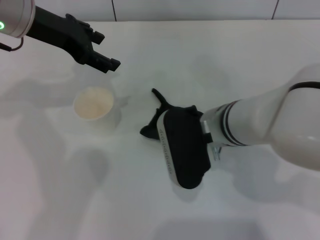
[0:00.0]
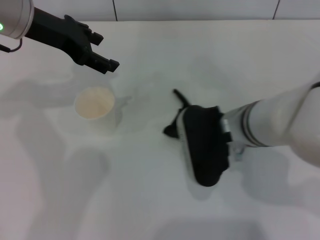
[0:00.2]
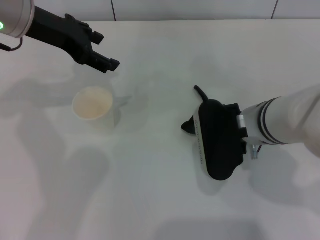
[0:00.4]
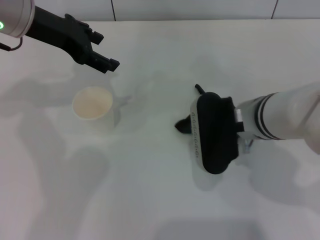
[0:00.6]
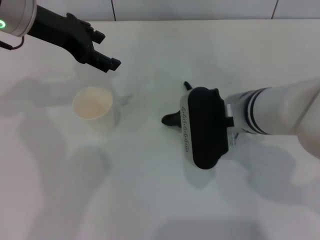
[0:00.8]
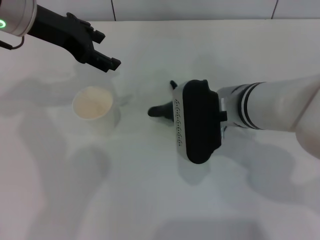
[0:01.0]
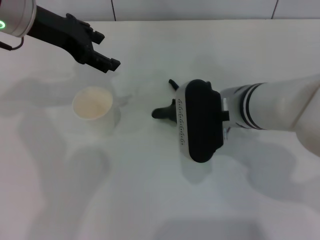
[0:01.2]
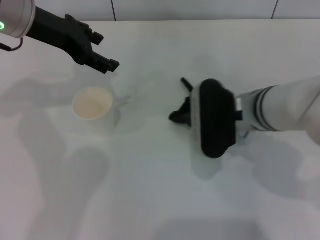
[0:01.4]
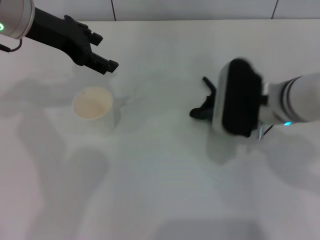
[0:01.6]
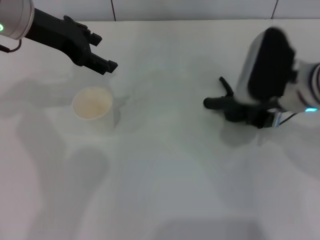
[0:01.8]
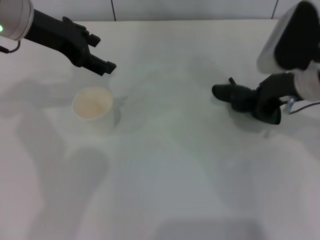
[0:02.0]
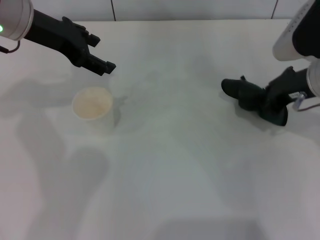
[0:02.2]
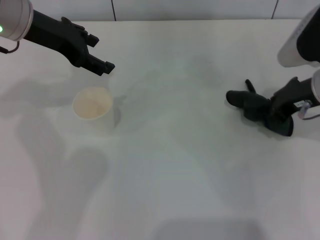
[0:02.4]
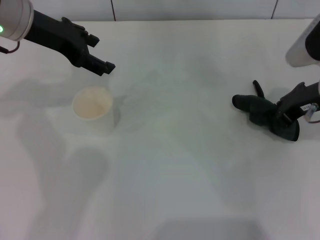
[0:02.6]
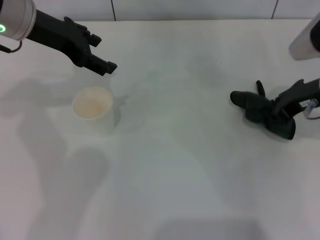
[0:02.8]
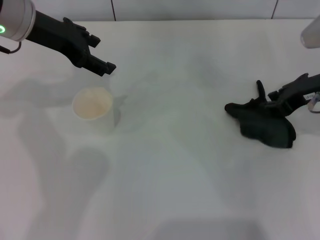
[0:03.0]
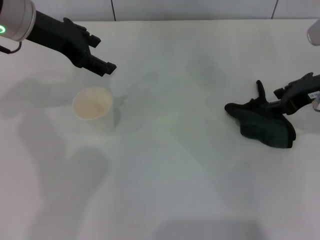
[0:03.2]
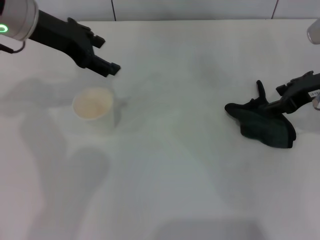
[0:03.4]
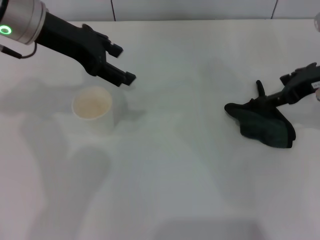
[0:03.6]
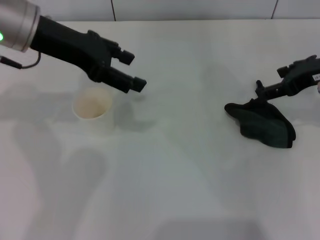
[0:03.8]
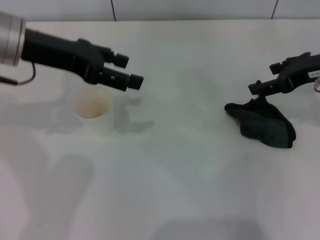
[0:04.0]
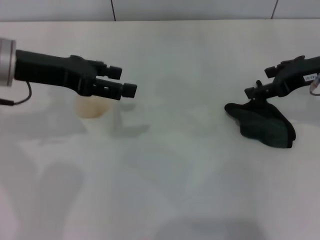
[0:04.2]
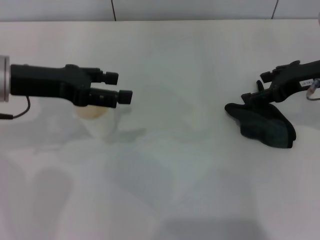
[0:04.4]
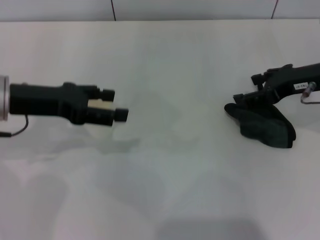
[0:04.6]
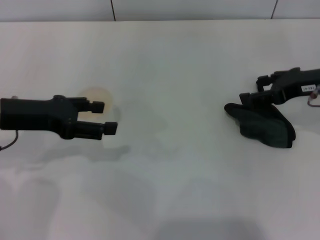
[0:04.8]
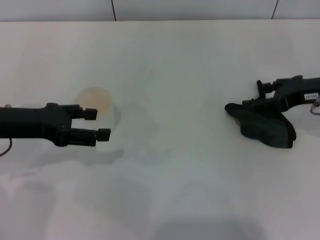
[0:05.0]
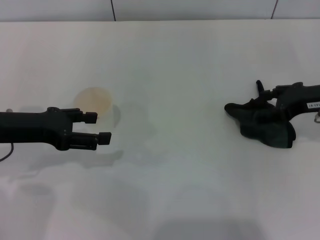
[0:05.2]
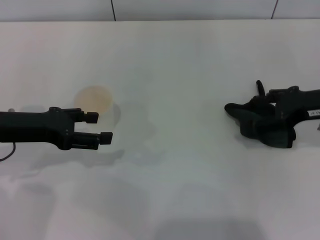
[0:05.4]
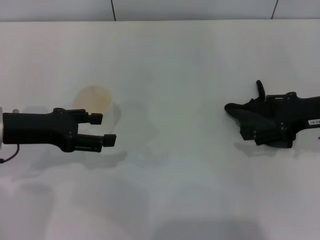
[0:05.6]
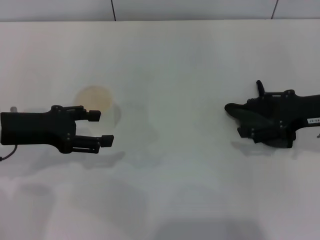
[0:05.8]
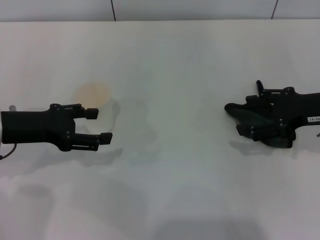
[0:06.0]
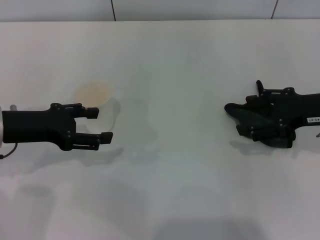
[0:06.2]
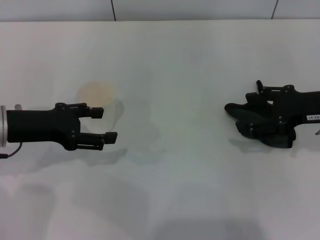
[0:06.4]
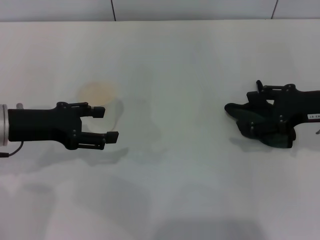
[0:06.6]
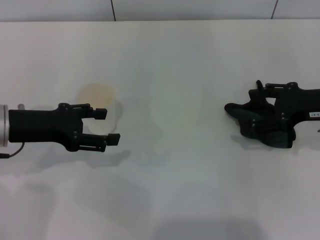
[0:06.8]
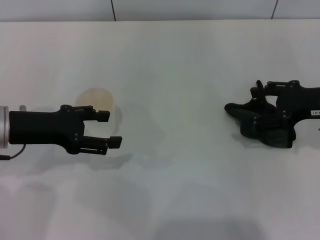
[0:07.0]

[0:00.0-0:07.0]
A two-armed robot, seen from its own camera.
Step, 0:00.0 to 0:02.4: Wipe the stains off the table with the right gripper.
Step, 0:02.6 to 0:03.4: Place the rag on the table with the right gripper.
0:00.0 to 0:01.4: The grippers stay close to where they were, moving slightly.
0:01.4 to 0:02.8: The right gripper goes roughly 15 cm to the right.
0:02.8 to 0:04.2: The left gripper goes some 5 cm backward; the right gripper opens.
0:04.2 to 0:05.6: The left gripper goes about 5 cm downward. The right gripper changes place by approximately 5 cm.
0:05.6 to 0:07.0: The grippers make only small movements.

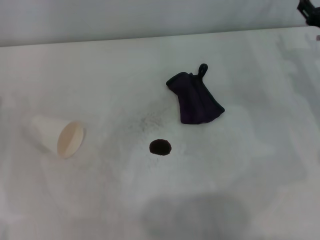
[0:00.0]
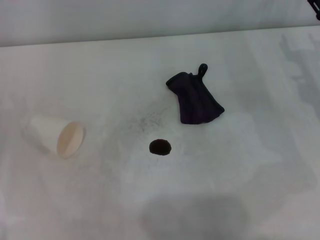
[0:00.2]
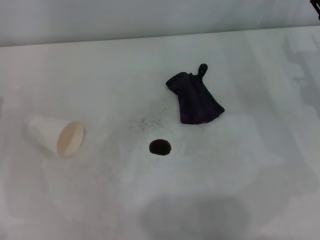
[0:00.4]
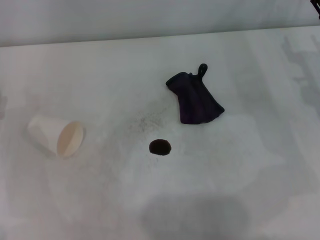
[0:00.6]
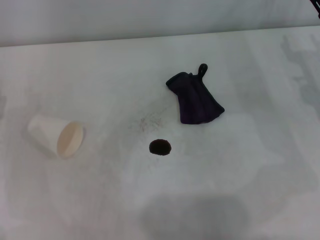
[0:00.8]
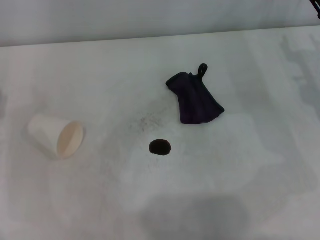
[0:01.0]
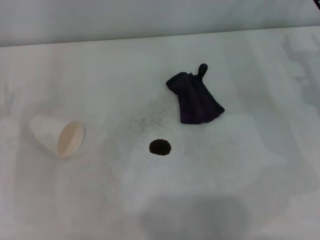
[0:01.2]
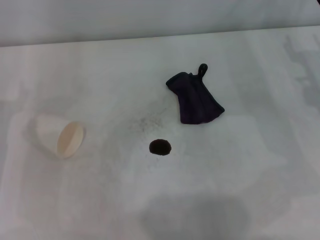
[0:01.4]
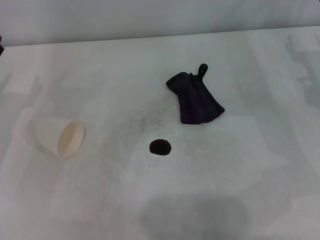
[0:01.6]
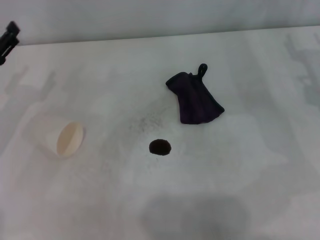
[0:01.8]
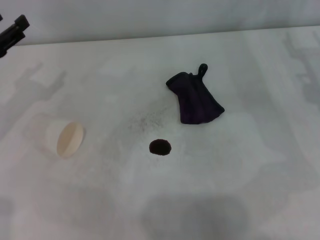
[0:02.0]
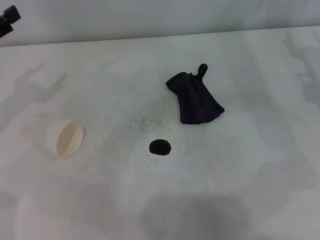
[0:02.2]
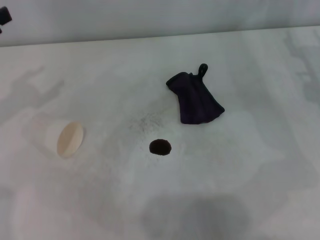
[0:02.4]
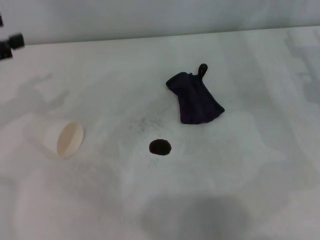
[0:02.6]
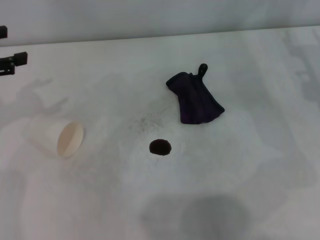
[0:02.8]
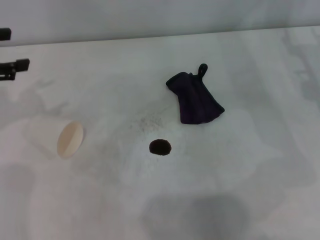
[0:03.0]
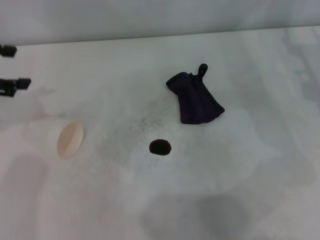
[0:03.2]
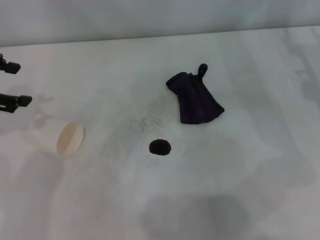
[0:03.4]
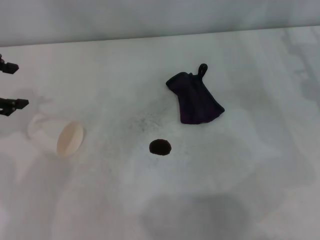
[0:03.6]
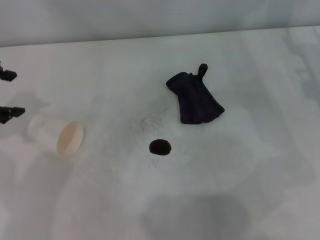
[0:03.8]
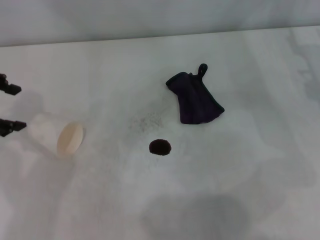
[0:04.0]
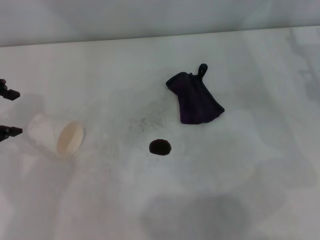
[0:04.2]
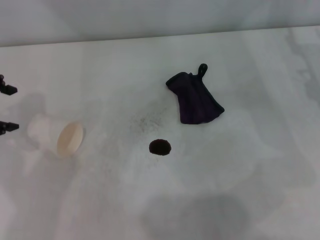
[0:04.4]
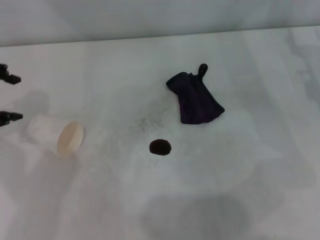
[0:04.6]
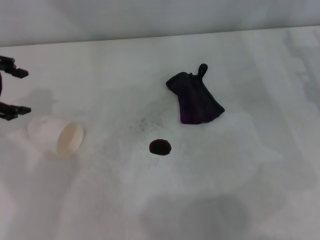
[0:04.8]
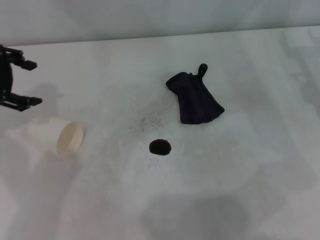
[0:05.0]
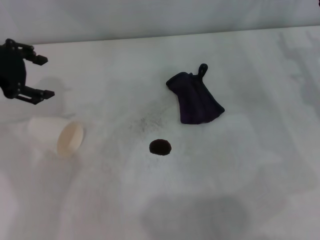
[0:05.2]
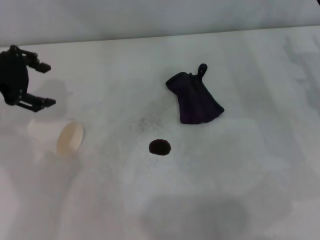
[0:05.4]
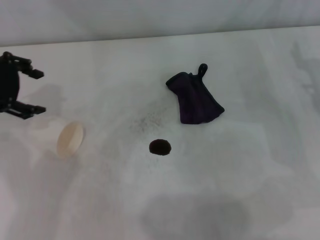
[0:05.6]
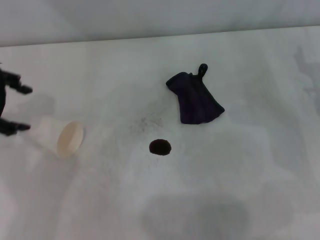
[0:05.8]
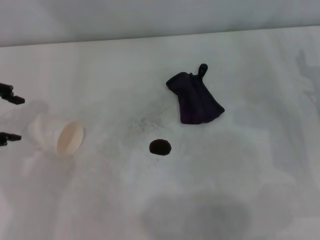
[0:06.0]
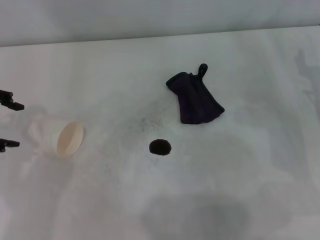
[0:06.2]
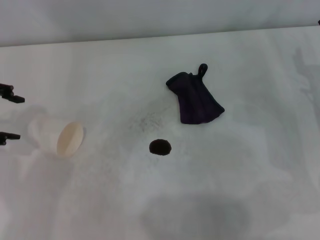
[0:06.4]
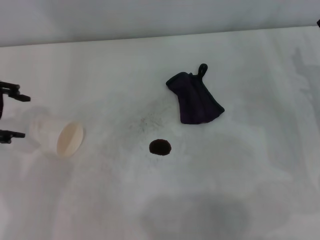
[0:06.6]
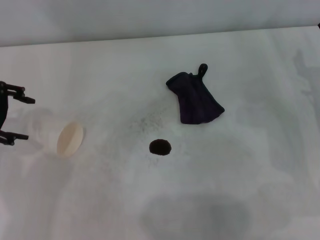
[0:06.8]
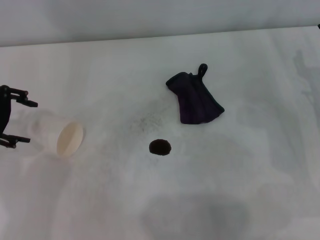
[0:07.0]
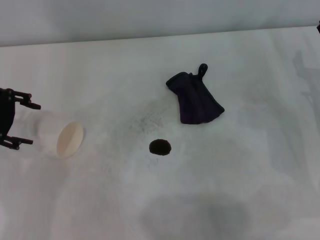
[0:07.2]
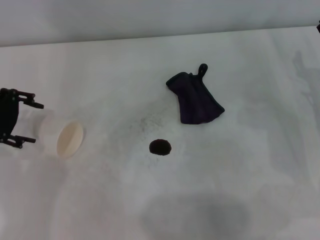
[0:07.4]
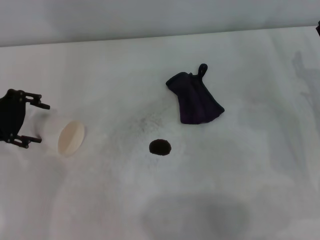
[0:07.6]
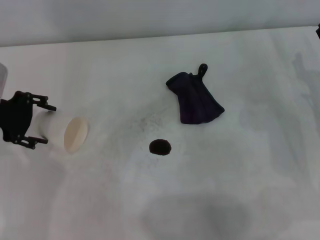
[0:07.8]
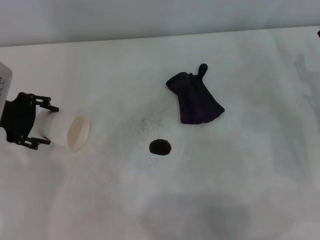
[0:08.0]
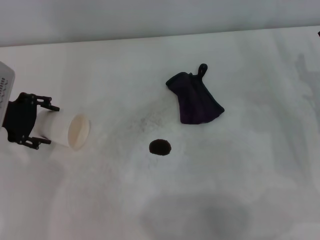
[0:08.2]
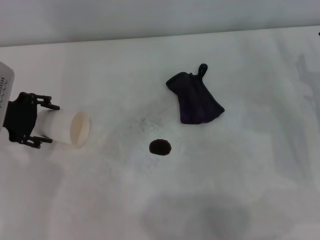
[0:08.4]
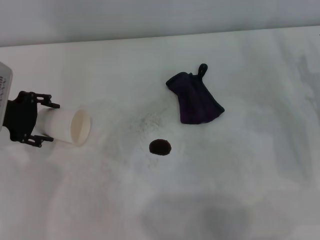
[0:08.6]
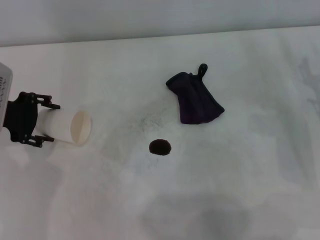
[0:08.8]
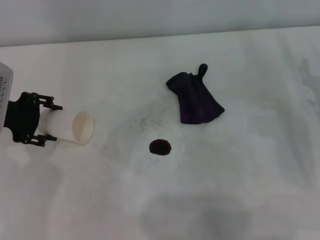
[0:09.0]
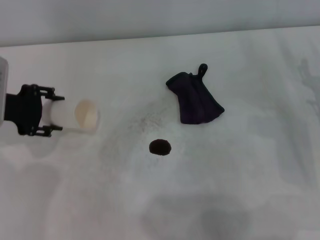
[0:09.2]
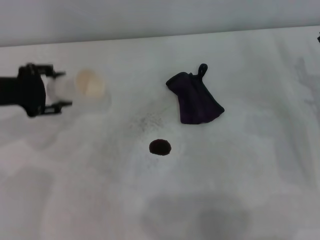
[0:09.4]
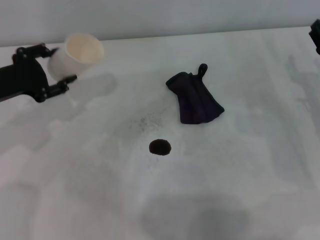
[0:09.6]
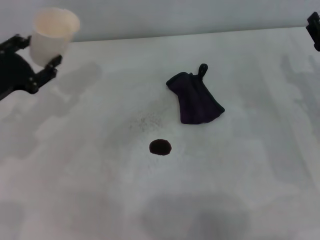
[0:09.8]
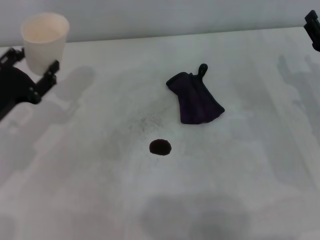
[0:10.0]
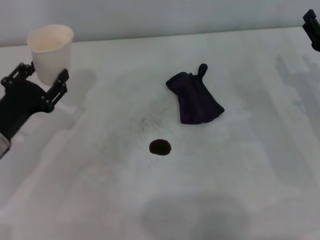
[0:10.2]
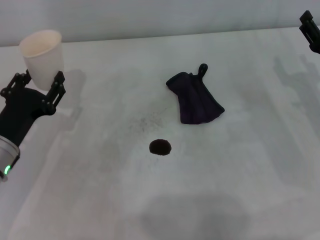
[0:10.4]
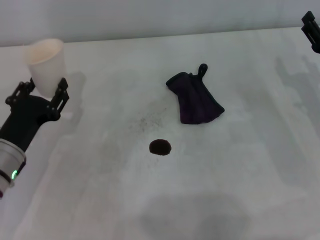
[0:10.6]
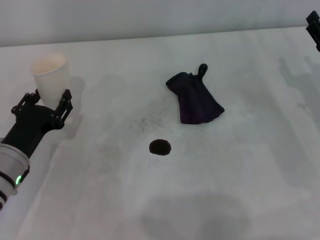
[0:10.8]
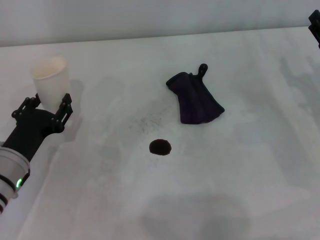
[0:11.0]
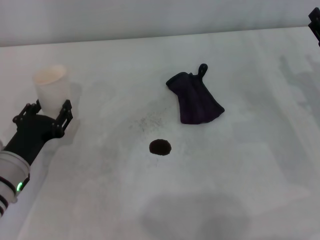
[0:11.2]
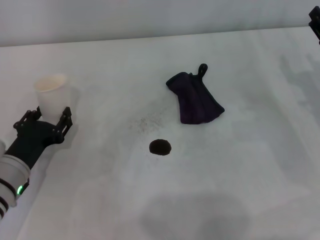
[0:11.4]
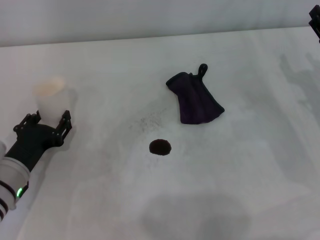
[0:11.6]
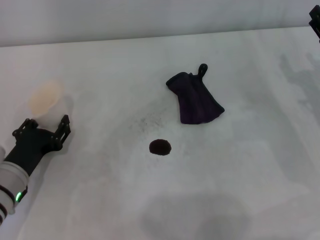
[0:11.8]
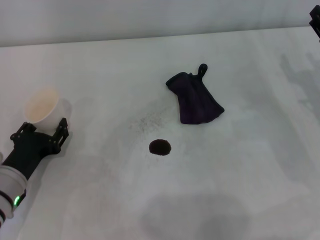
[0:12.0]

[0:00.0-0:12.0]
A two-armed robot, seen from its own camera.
Step, 0:00.0 to 0:08.6: Grasp the paper cup with the left gripper.
0:01.6 to 0:03.0: The left gripper shifts about 15 cm upward.
0:06.0 to 0:07.6: The left gripper shifts some 5 cm downward.
0:07.6 to 0:09.0: The grippers make only small movements.
0:09.0 to 0:10.4: The left gripper travels backward and downward by approximately 15 cm, and closes up.
0:10.4 to 0:12.0: The left gripper ends up roughly 5 cm from where it was.

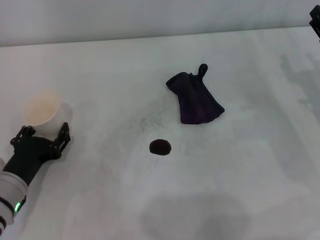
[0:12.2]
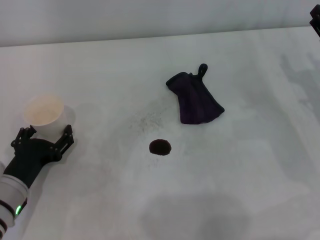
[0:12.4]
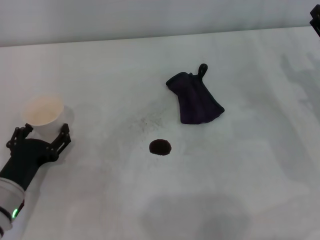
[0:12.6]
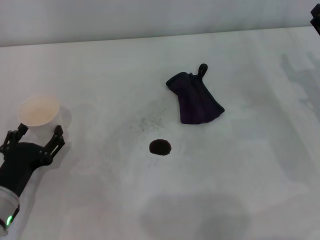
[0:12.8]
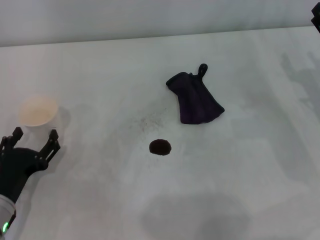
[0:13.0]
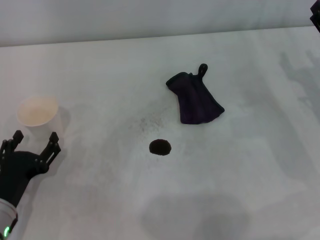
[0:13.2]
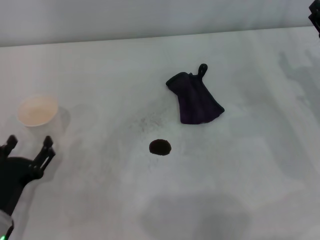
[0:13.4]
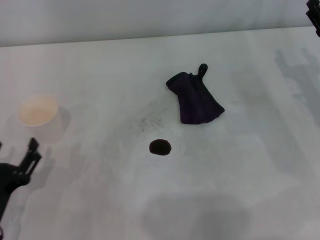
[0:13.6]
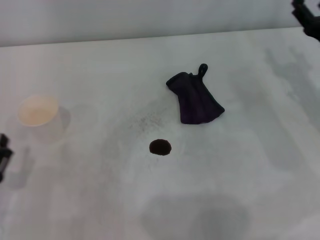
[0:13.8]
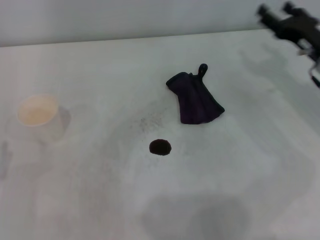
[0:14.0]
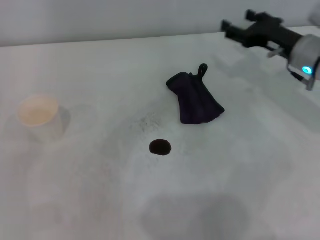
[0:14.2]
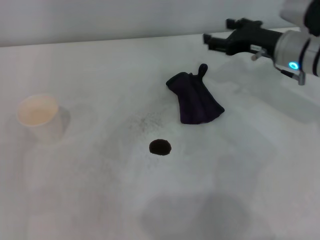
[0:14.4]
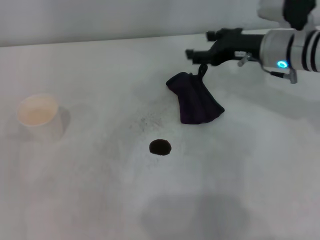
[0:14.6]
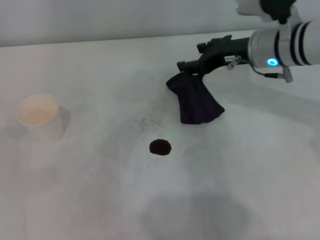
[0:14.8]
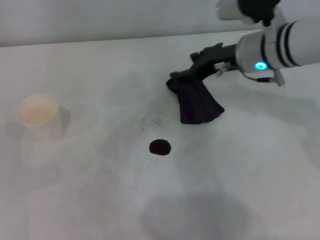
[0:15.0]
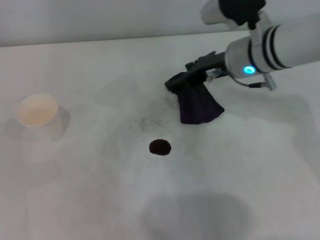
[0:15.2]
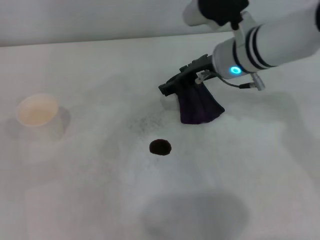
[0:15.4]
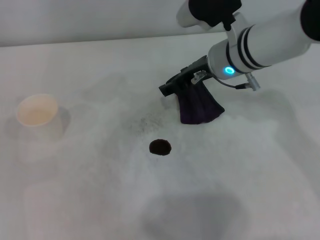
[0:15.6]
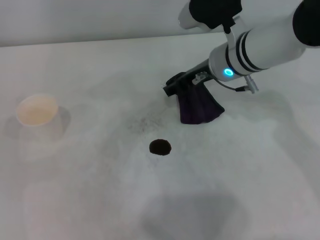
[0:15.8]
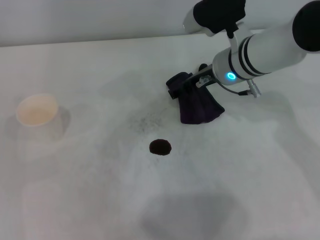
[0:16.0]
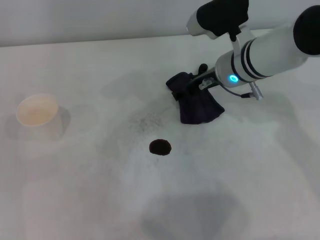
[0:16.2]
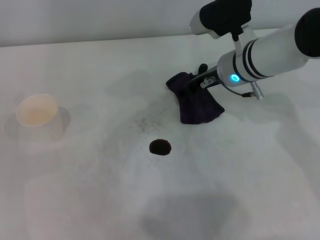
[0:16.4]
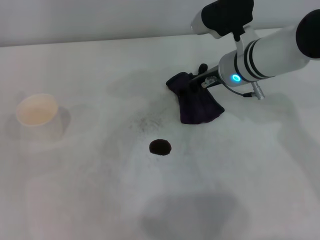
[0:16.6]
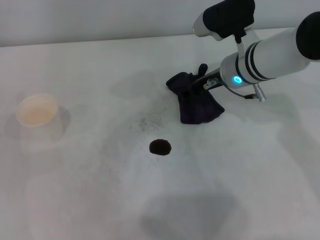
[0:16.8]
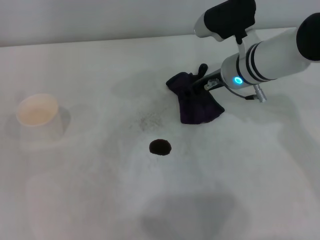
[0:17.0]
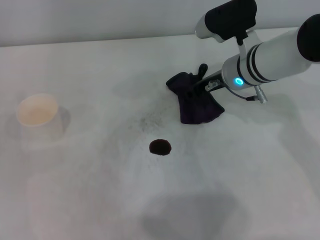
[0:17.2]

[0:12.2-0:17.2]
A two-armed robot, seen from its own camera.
0:12.2 to 0:13.8: The left gripper is displaced backward by some 10 cm, and opens.
0:13.8 to 0:15.6: The left gripper is displaced forward and to the left by roughly 15 cm; the right gripper moves to the left, some 20 cm.
0:15.6 to 0:17.2: The right gripper closes.
